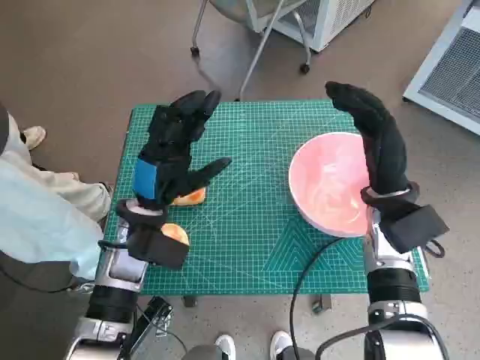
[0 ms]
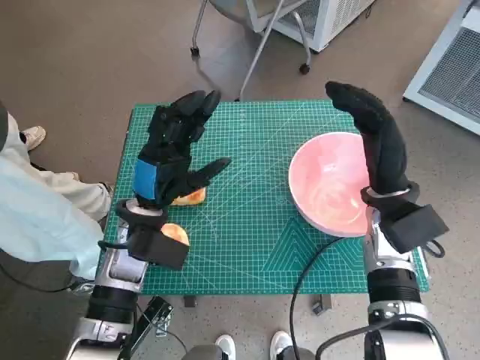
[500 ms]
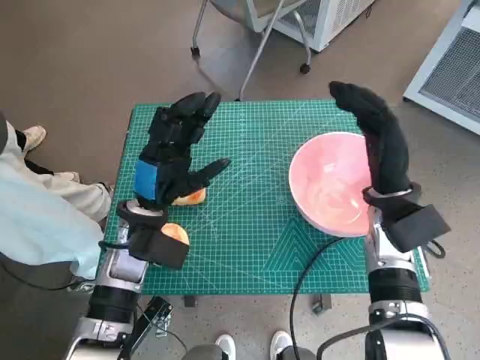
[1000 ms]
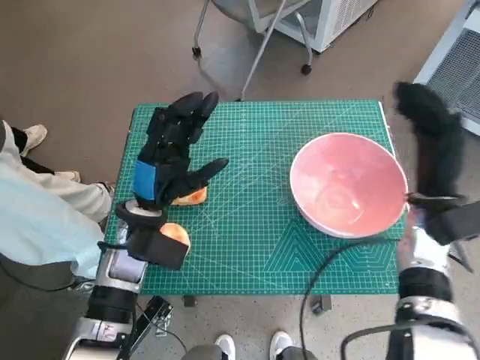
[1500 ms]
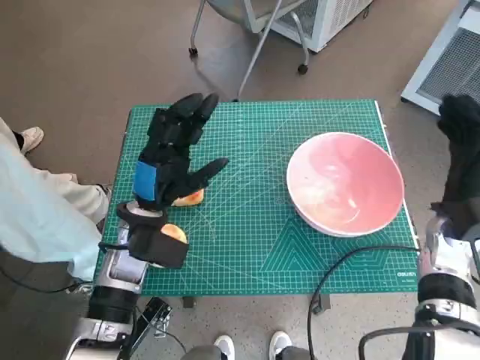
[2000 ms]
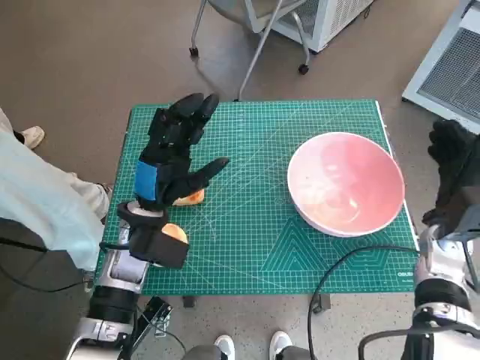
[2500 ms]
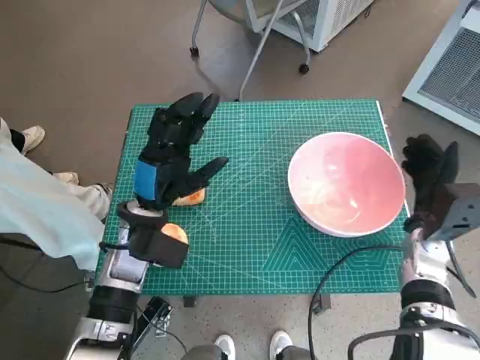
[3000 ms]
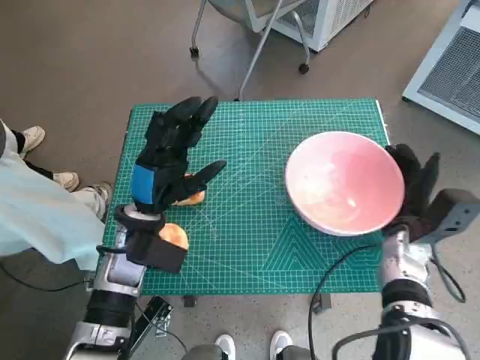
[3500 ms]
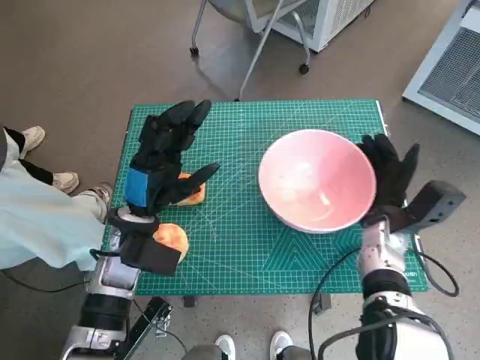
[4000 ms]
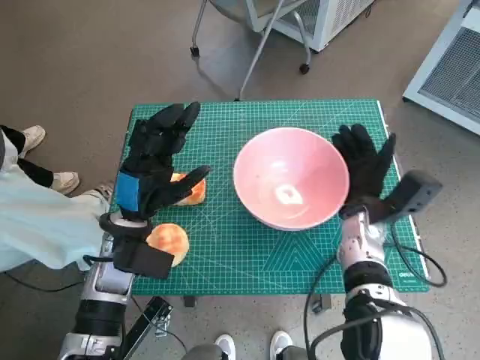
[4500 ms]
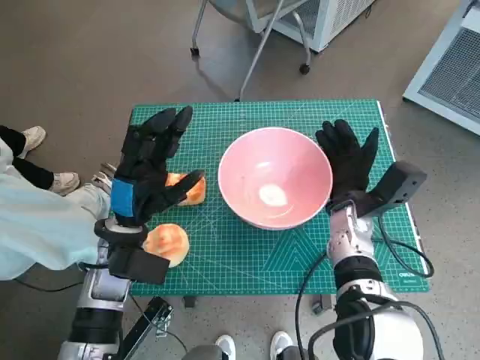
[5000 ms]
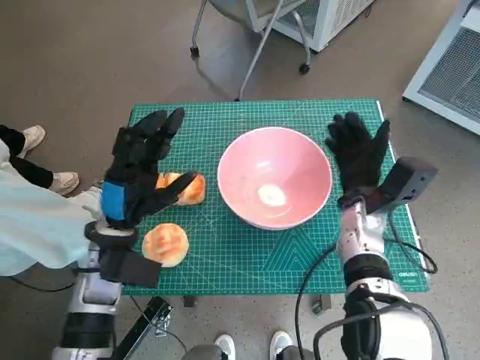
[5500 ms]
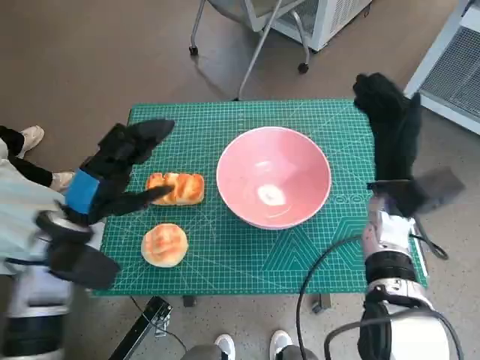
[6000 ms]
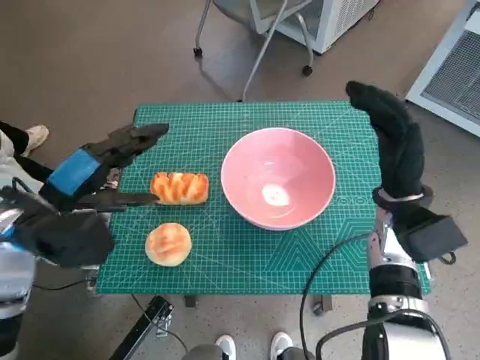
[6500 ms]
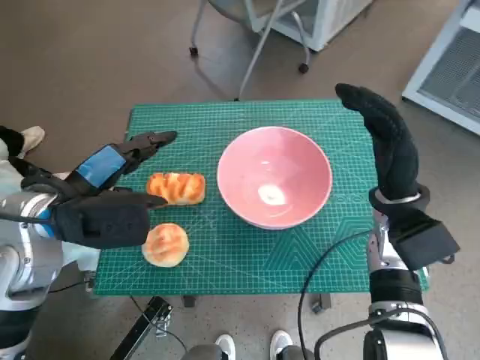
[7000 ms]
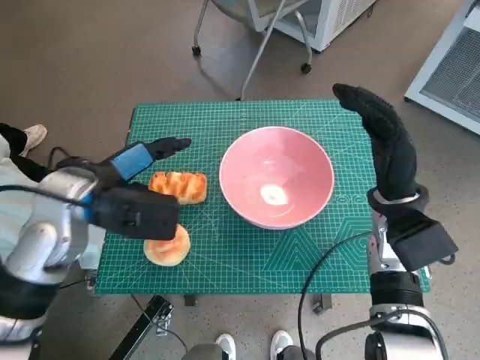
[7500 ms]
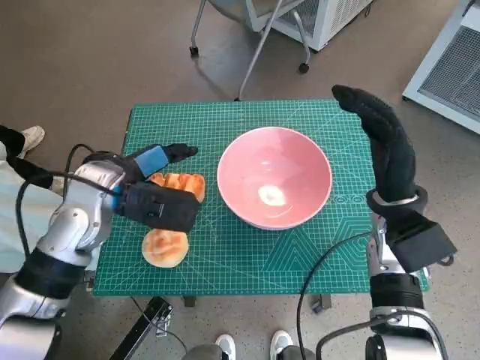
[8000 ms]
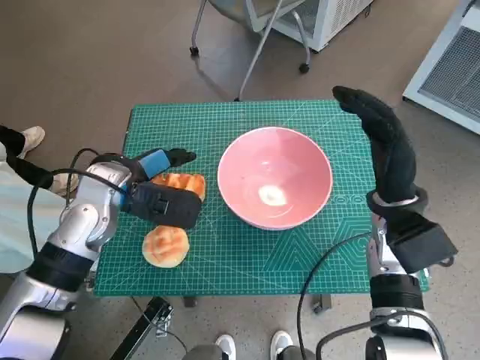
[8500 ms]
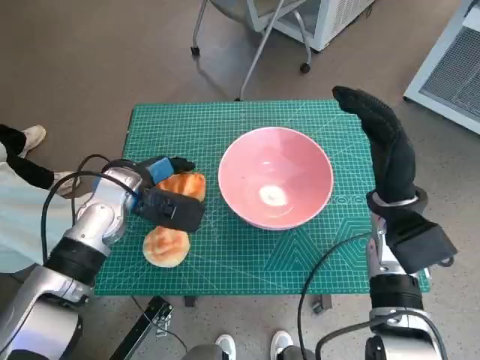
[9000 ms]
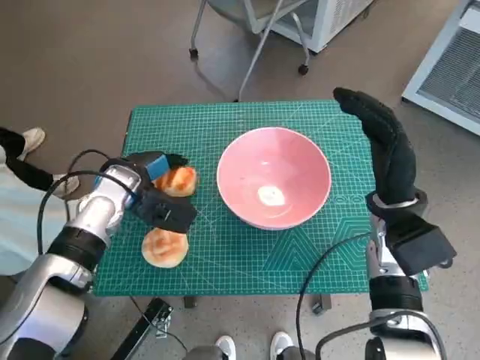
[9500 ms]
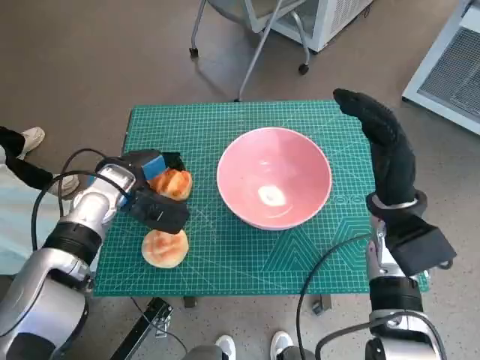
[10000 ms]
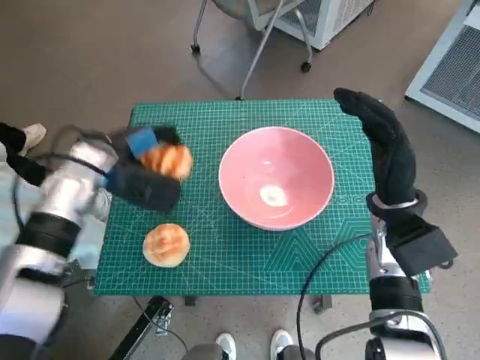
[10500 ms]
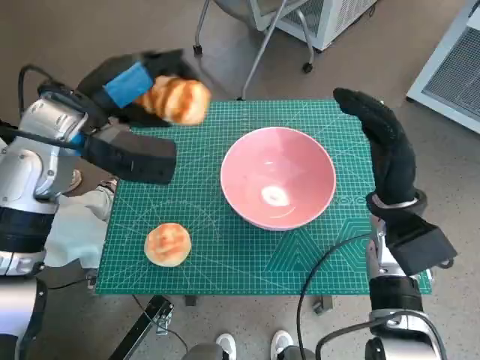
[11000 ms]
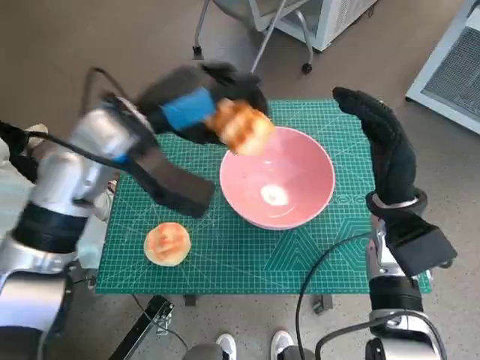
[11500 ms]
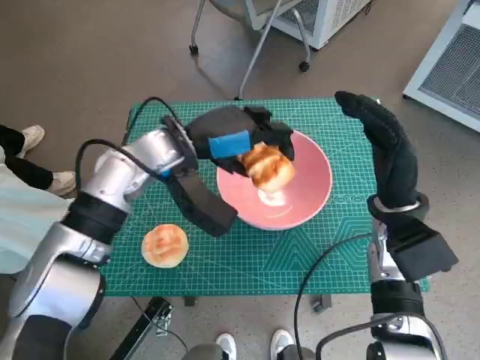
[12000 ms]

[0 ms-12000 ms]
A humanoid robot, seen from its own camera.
Task of the whole recording: Push the bowl to the center of the table and put the bread into the bowl.
Step, 0 ms to 5500 ms: Move the pink bowl to the center of table with right hand.
Step, 6000 ms to 10000 ms: Grasp the long bread with left hand.
2000 ms to 4000 ms: The right hand shifts some 10 cm to the left and downward.
4000 ms to 6000 ms: The right hand moves upward, approximately 5 cm, while the left hand moves to the left, some 5 cm.
6000 ms to 8000 ms: The left hand goes some 10 cm forward and to the right.
8000 ms to 10000 ms: The left hand goes roughly 5 cm downward.
10000 ms to 12000 ms: The left hand moves to the right and upward, about 15 cm.

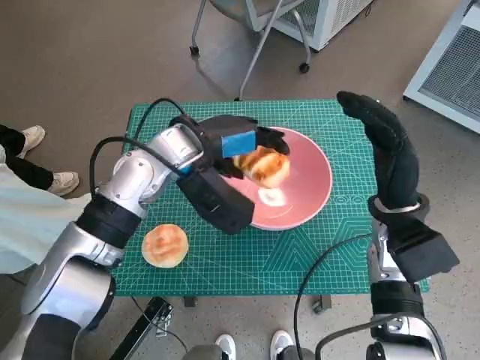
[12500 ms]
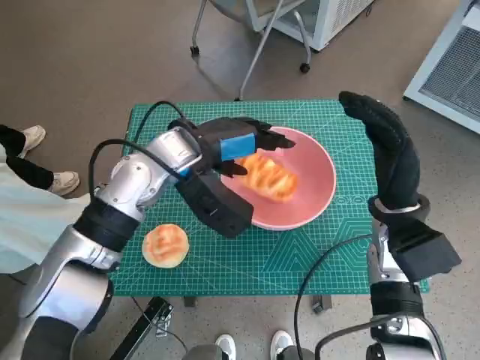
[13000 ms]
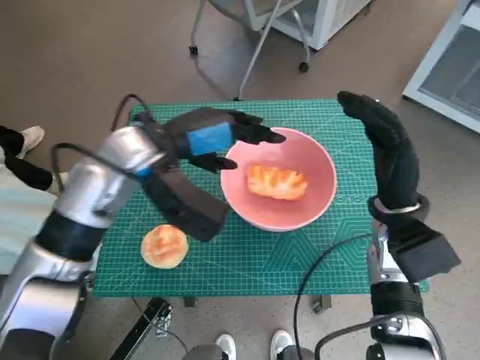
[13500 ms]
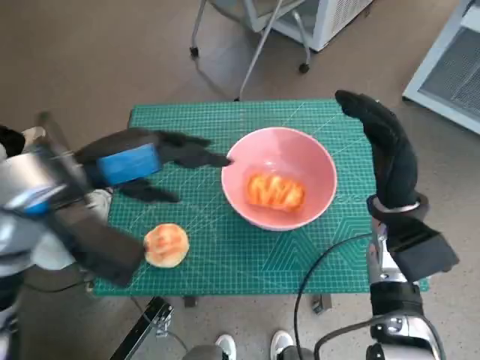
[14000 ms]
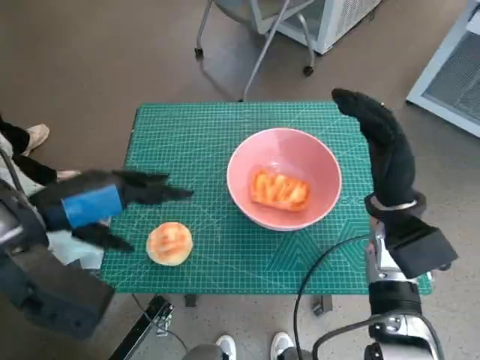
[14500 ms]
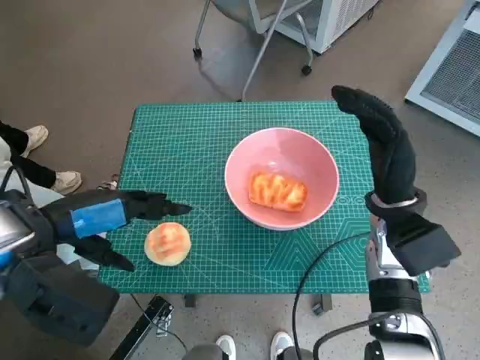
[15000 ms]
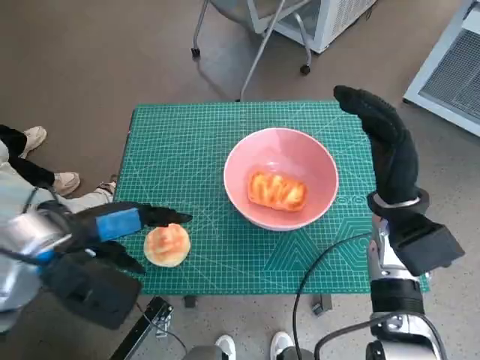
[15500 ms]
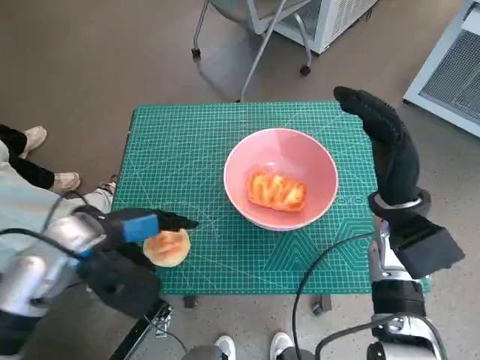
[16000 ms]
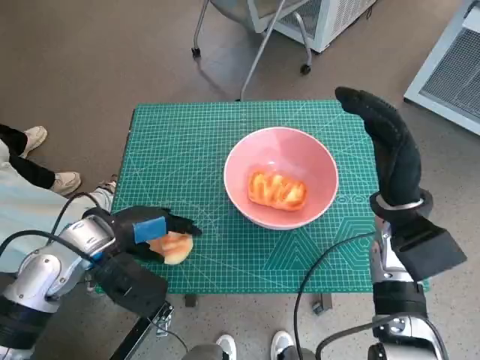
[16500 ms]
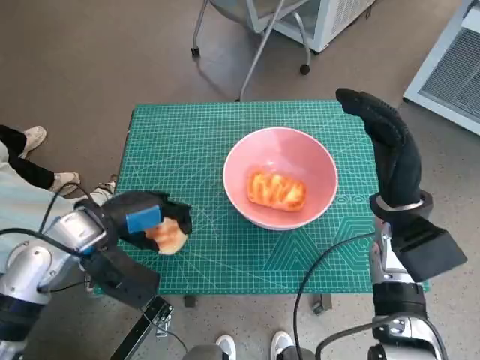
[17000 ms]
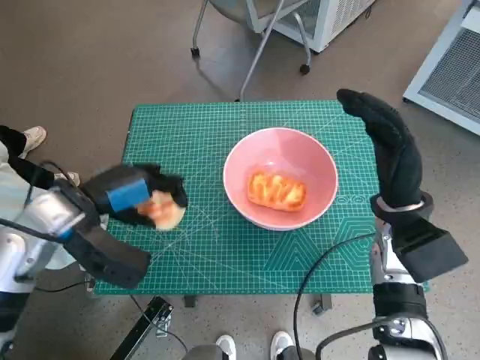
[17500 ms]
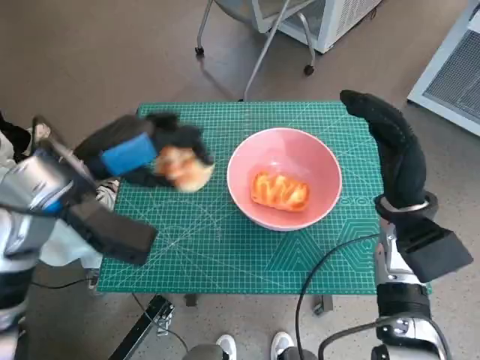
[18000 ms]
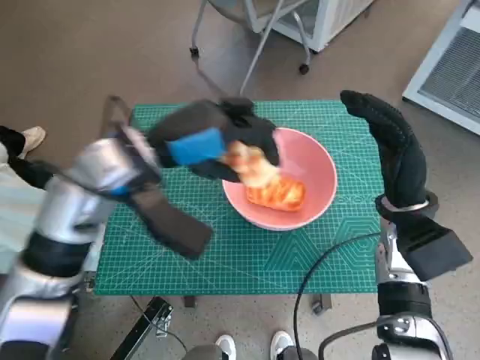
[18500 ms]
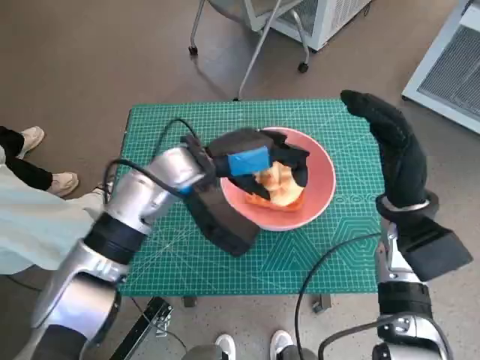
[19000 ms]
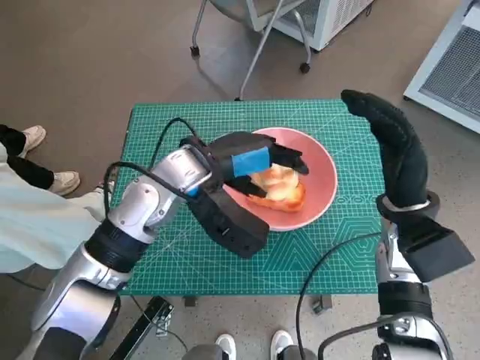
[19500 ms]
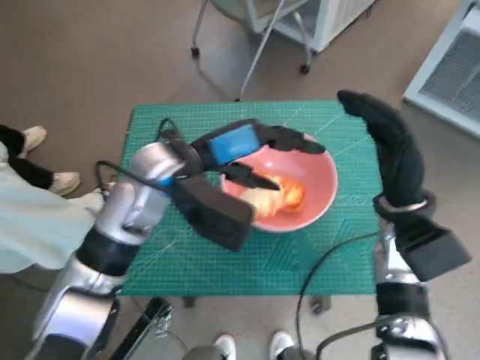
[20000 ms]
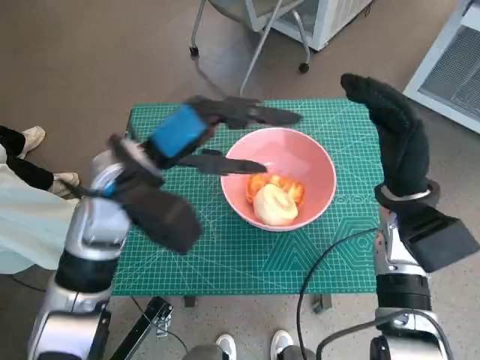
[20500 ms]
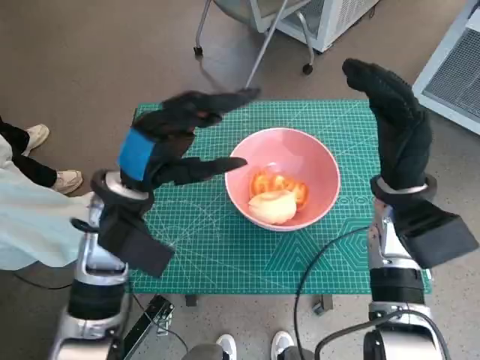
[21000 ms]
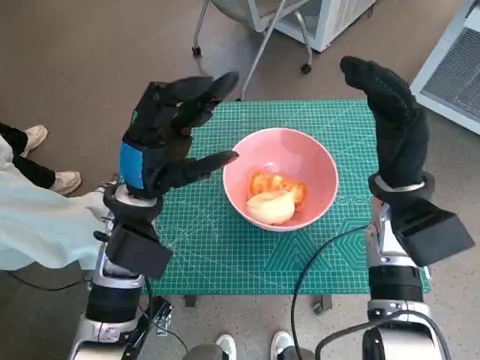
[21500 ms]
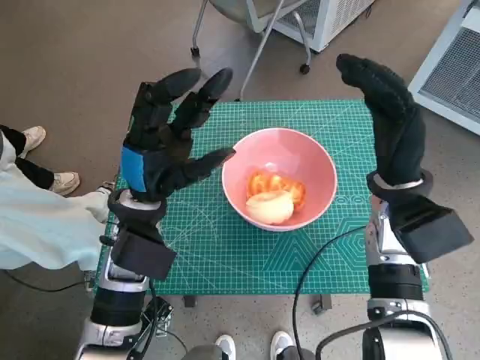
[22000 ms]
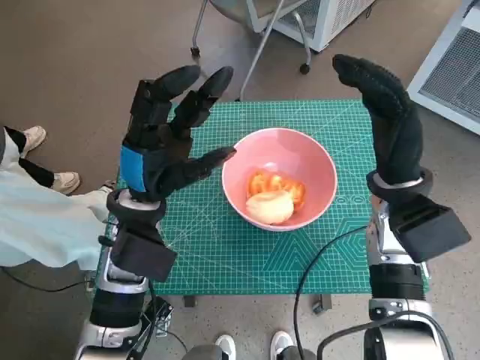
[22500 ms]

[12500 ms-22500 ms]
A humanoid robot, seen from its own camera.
Task of the whole recording: Push the bowl to the center of the table and put the bread into the bowl.
Step, 13500 ms to 16500 ms: Grasp the round bread with left hand.
Step, 17000 ms to 20000 ms: Place the round bread in pink bowl with left hand.
12500 ms to 14500 ms: The left hand shifts roughly 20 cm backward, to the left and upward.
14500 ms to 16500 ms: The left hand travels downward by about 15 cm.
16500 ms to 18500 ms: The left hand goes about 15 cm upward and to the right.
20500 ms to 22500 ms: The left hand heads downward, covering about 5 cm.

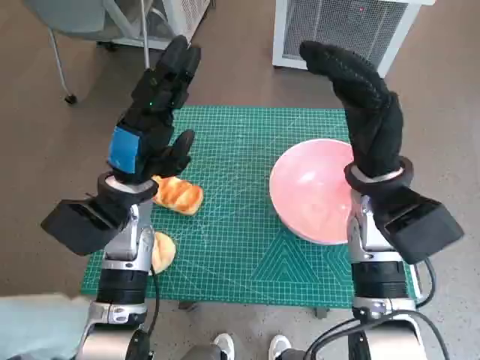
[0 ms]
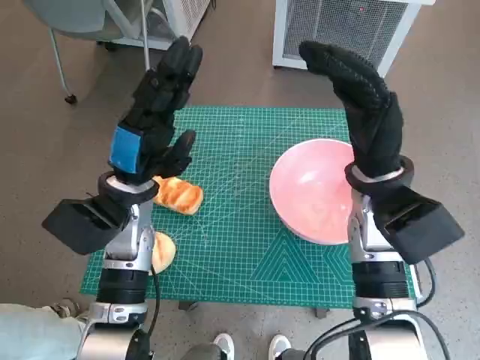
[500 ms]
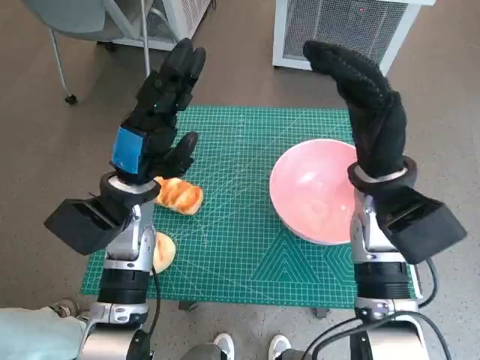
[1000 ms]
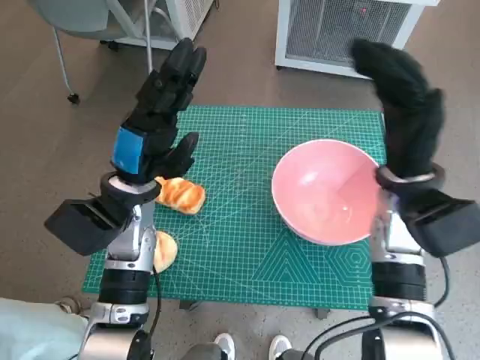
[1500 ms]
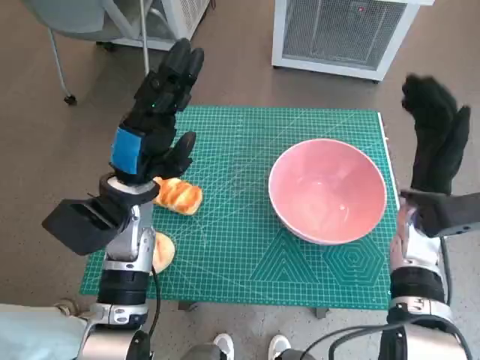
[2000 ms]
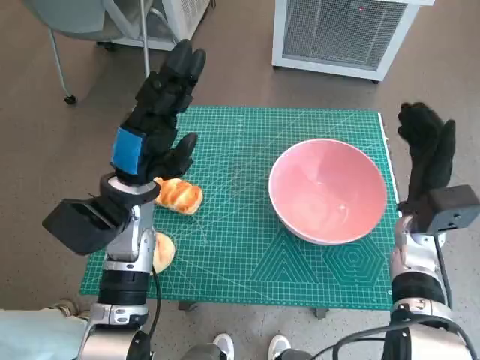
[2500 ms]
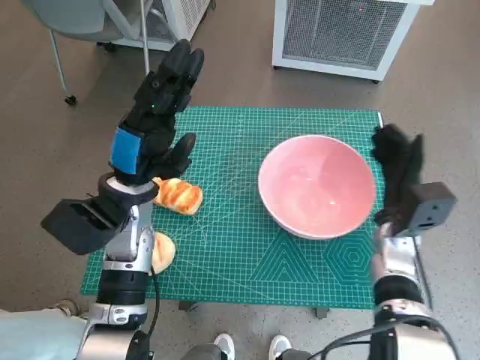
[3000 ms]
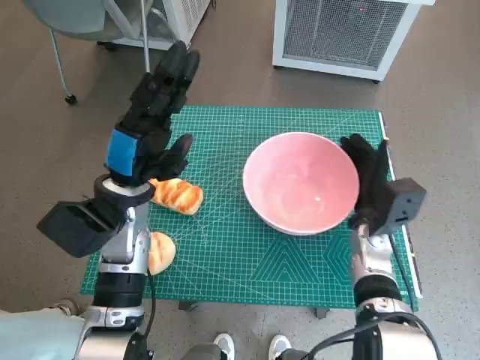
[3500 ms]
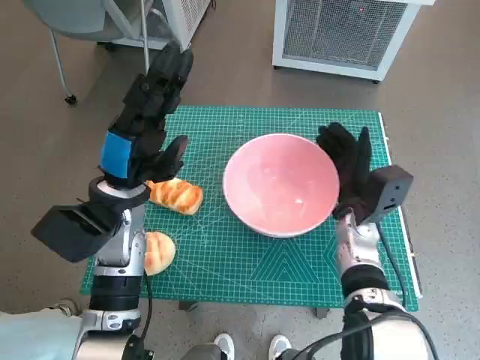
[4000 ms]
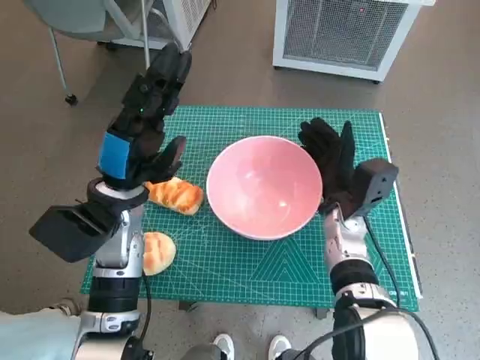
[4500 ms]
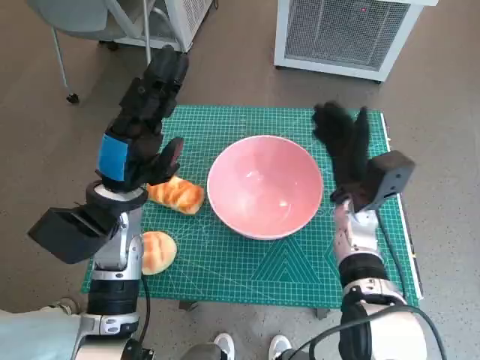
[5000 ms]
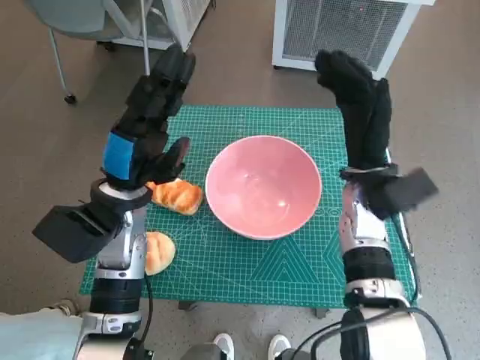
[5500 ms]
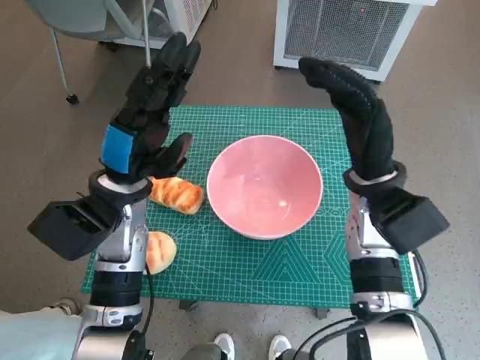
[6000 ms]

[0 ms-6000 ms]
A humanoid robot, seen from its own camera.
Task of the whole recording: Push the bowl to the center of the table and put the bread into the bowl.
Step, 0 ms to 5000 ms: Move the pink bowl to the center of table with right hand.
2000 ms to 4000 ms: The right hand travels to the left and downward by about 10 cm.
4000 ms to 6000 ms: The right hand travels upward by about 10 cm.
